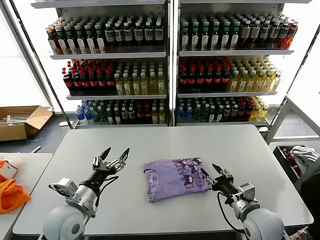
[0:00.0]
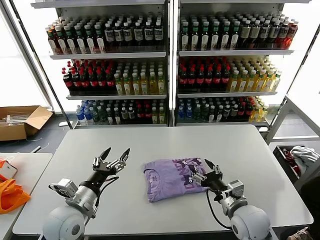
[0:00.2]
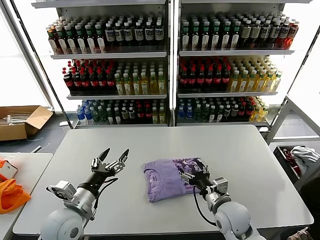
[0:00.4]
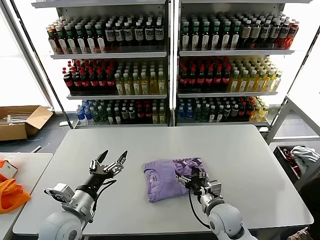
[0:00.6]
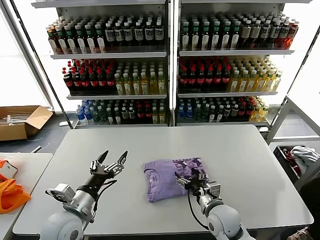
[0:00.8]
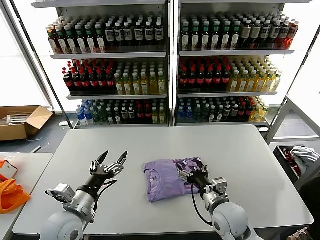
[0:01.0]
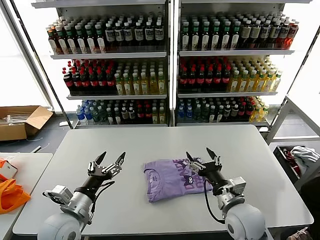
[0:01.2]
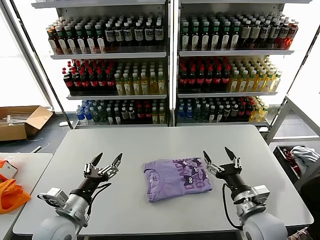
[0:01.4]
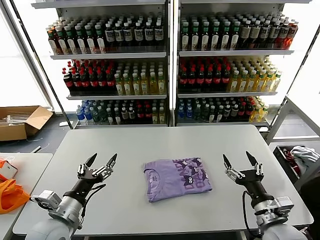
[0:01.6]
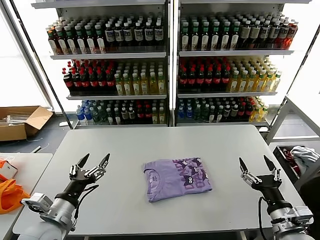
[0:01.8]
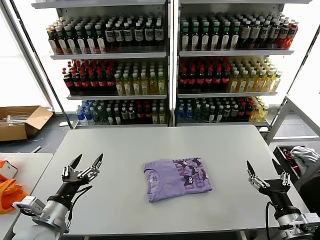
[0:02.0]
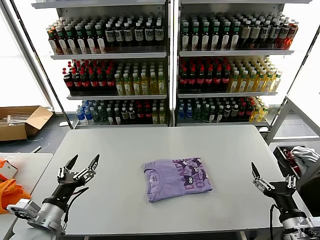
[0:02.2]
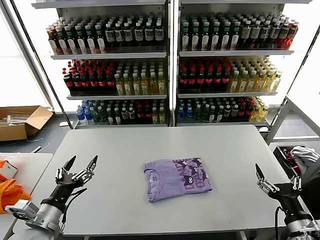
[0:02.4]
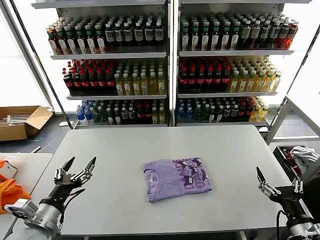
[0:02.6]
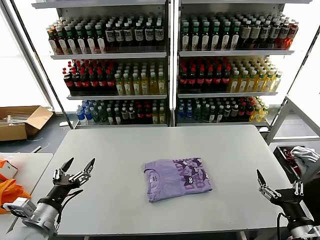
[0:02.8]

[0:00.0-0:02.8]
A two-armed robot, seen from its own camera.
Task of the whole recording: fold and organize the clothes.
0:00.0 to 0:01.4: The right gripper reaches about 10 cm to the left, then returns, and opens its fingers.
0:01.4 to 0:02.8: The left gripper travels to the left by roughly 5 cm. The right gripper shifts approximately 15 cm to the right and backward.
